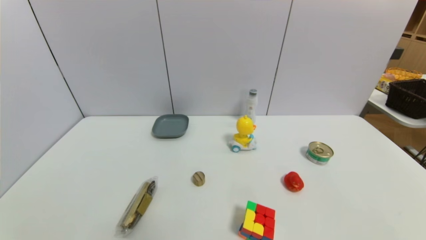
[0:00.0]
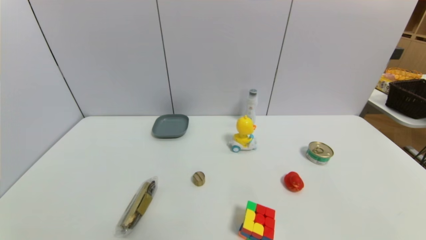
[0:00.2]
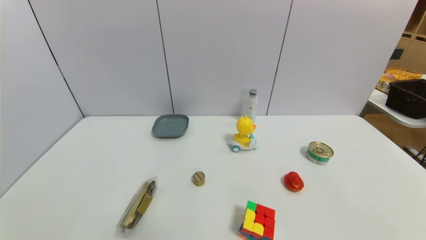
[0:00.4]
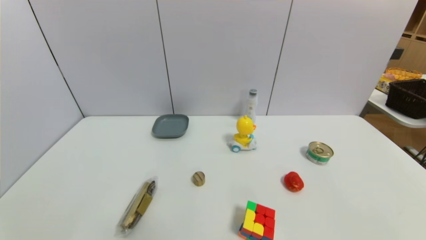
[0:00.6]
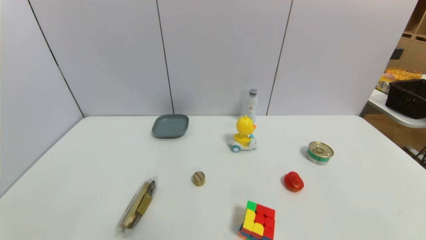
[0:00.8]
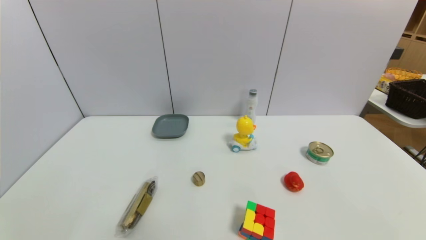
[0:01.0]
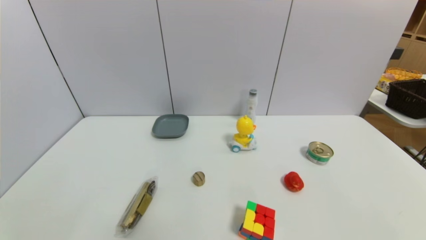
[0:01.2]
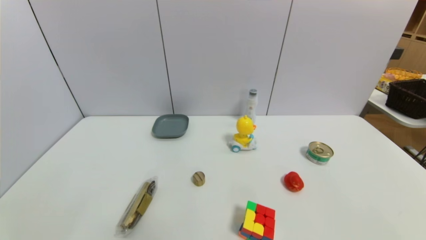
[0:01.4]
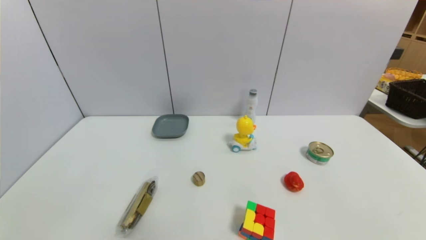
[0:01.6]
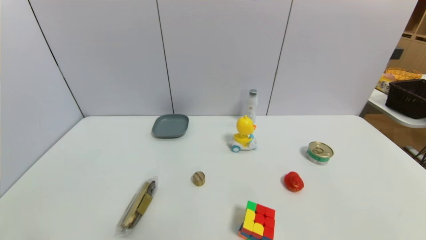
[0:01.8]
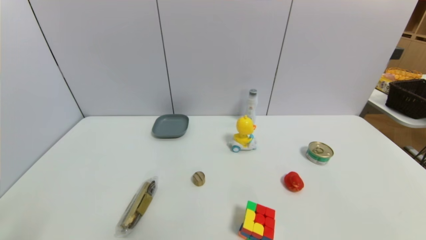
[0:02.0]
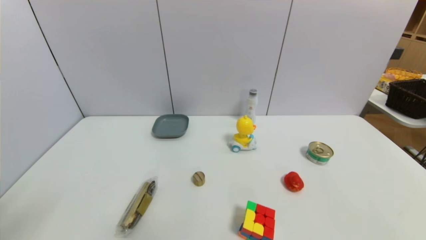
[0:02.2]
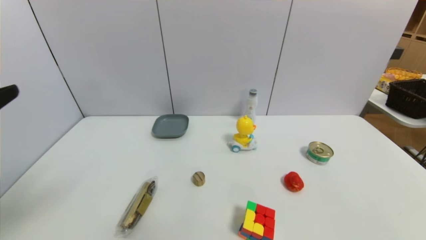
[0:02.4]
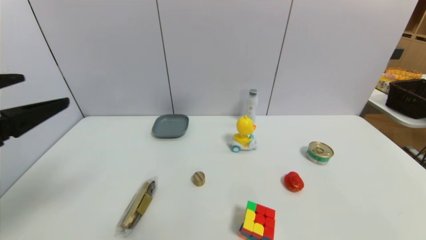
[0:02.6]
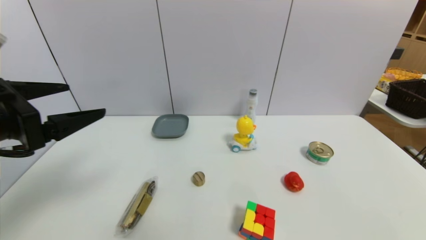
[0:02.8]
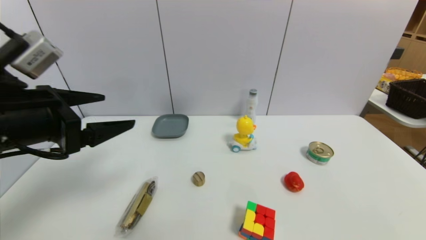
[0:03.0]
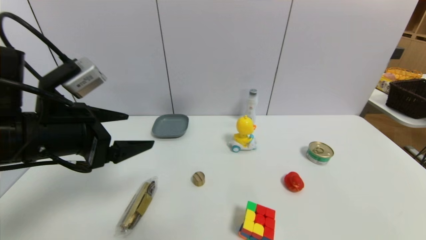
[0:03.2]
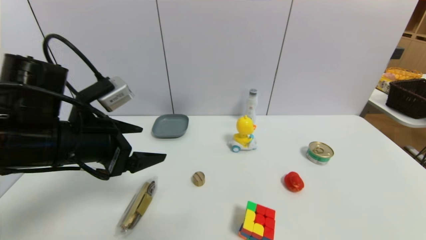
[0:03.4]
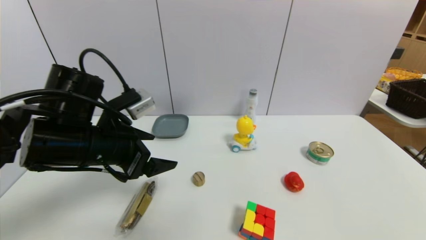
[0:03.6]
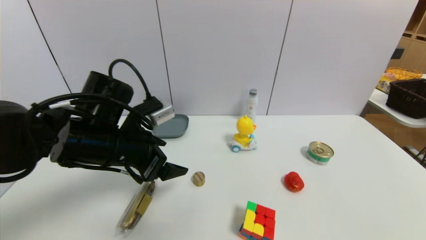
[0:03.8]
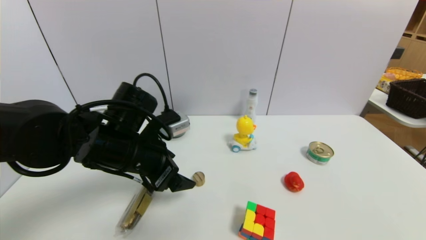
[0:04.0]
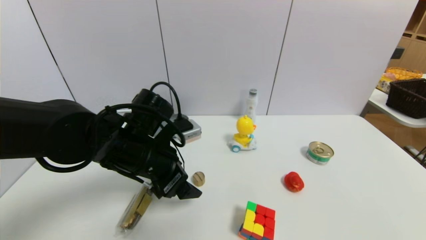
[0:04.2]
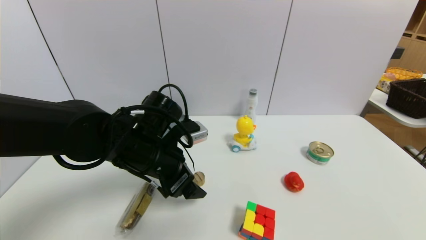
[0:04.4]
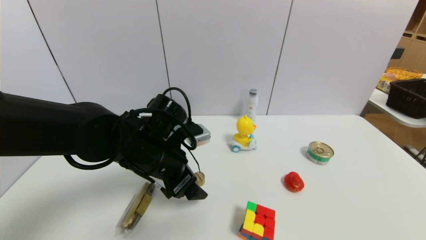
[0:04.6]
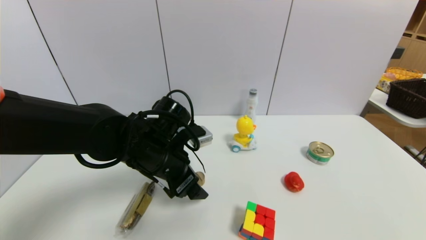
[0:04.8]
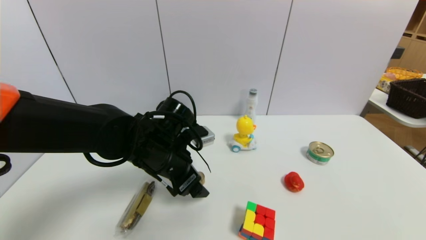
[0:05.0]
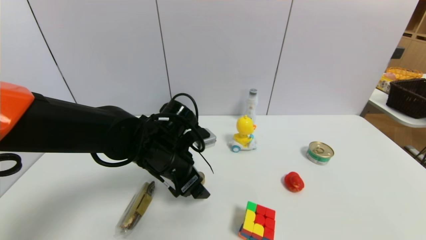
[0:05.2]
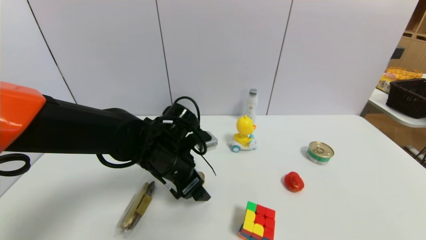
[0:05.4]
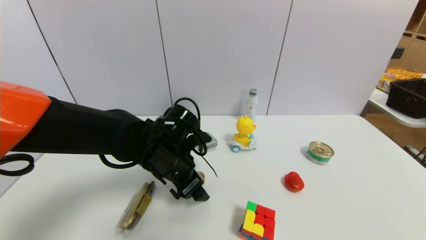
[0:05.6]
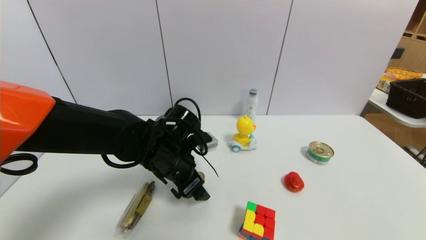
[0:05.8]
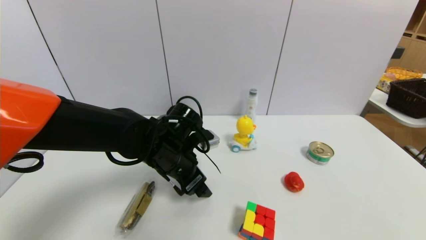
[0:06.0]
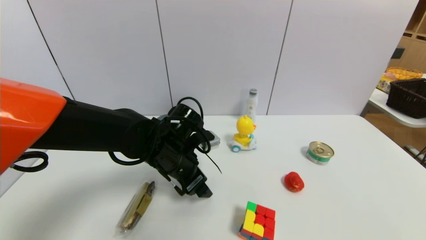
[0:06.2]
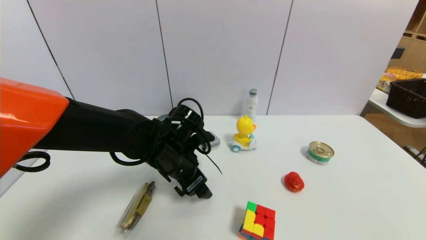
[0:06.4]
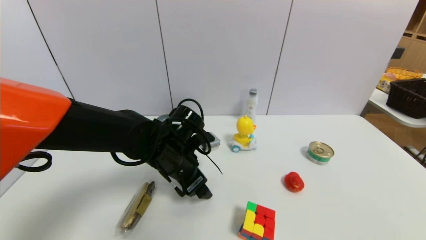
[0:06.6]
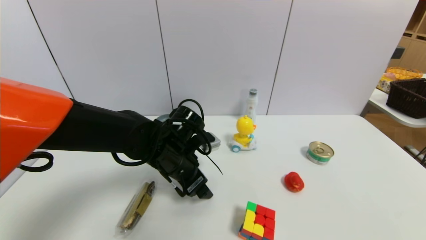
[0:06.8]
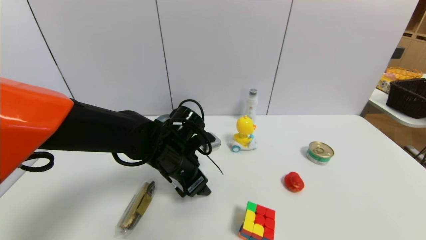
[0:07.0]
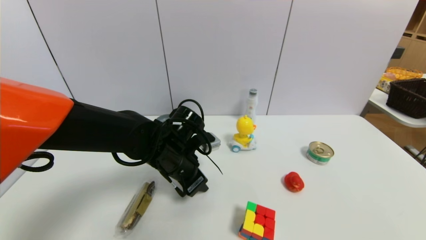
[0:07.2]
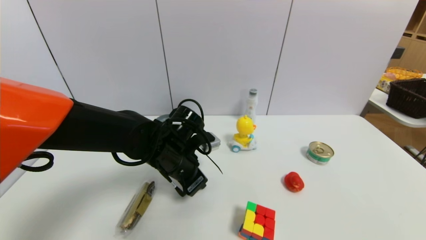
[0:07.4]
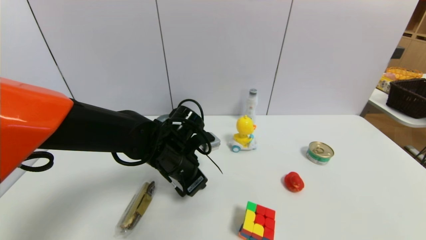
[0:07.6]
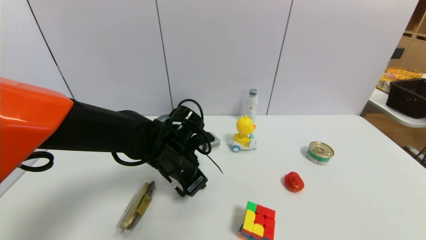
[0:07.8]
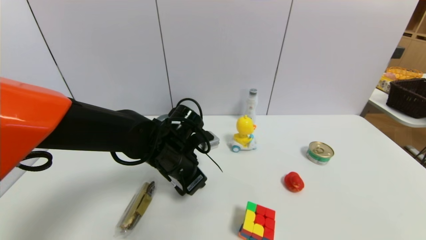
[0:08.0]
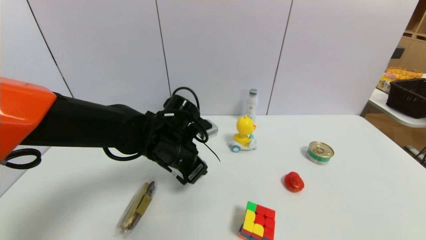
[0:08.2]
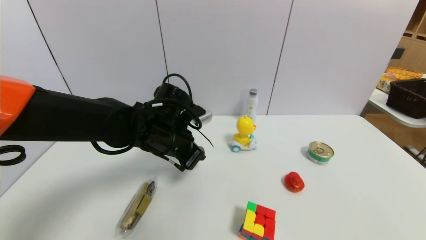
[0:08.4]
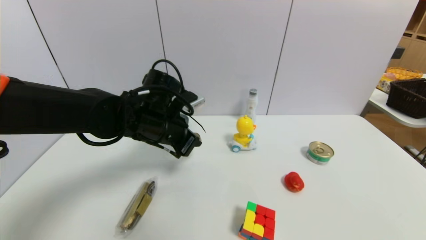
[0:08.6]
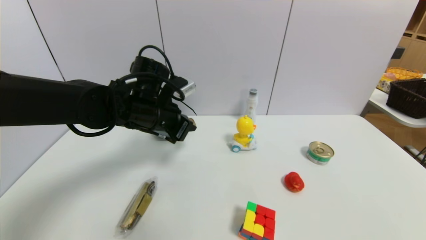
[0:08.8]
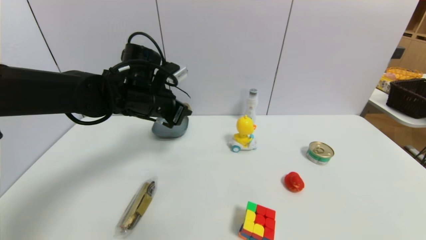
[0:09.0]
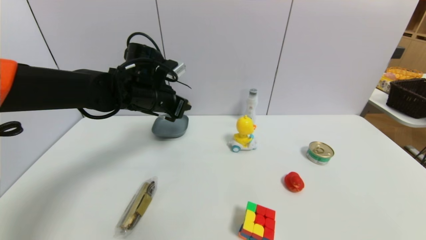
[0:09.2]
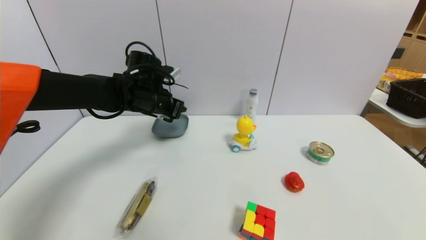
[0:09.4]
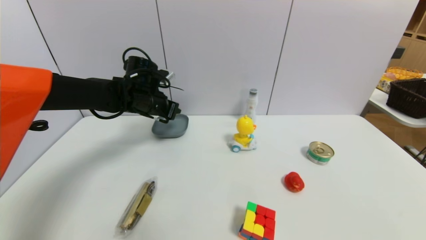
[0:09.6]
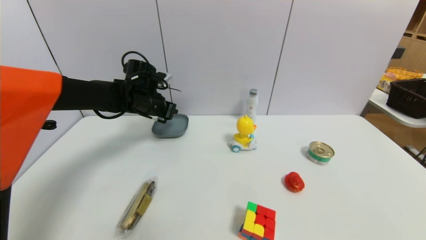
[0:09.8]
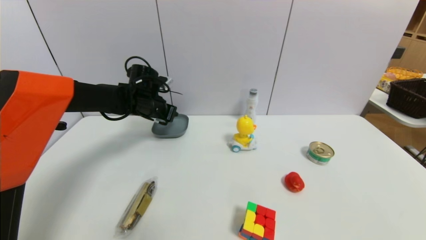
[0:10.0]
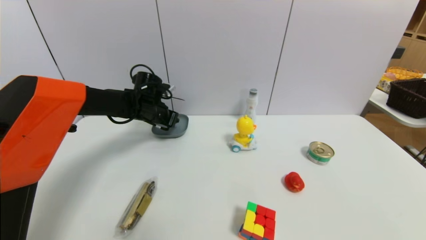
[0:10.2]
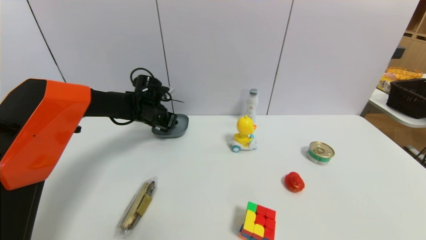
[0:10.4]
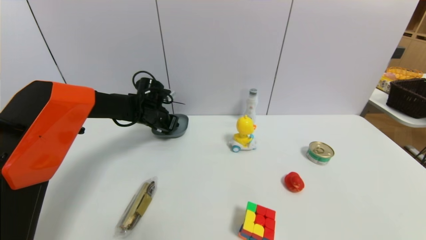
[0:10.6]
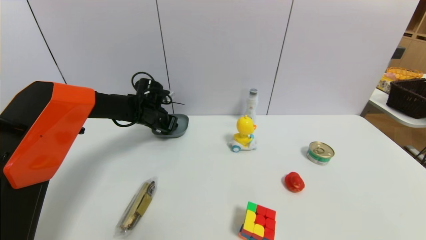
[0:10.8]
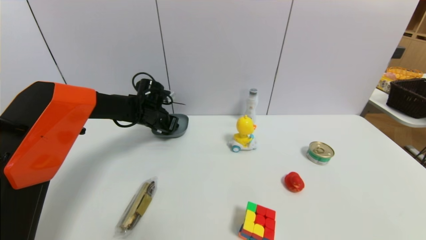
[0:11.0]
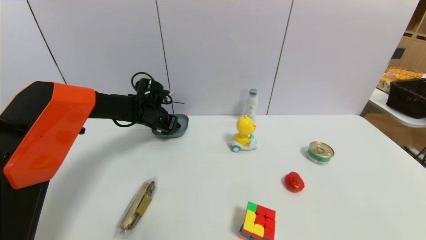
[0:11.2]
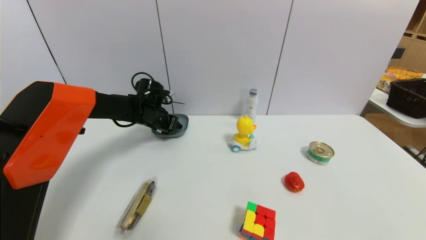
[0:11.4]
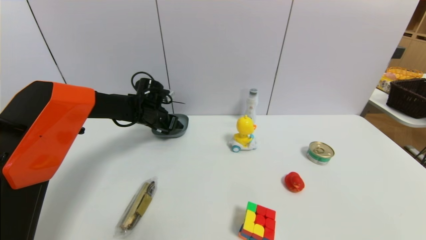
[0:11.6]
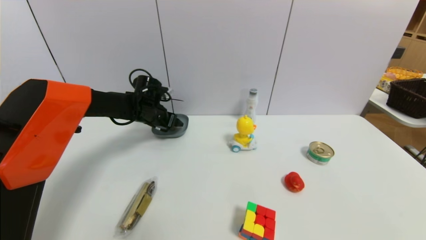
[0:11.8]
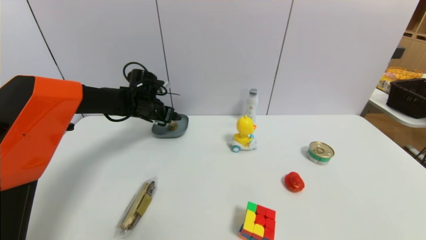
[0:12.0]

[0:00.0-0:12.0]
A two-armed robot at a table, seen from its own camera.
Task of the whole recording: use a gripper to pick the target object and place on the dish.
Step, 0:00.0 to 0:07.6: Grasp the round wooden block with the left gripper.
Step, 0:07.8 to 0:11.2: Place the round wooden block on the dish with the left gripper.
0:01.6 to 0:03.0: The left gripper heads forward and upward, covering approximately 25 cm.
0:03.0 to 0:04.4: The left gripper moves to the right, downward and forward, approximately 20 cm.
0:04.4 to 0:06.0: The left gripper moves roughly 5 cm.
0:06.0 to 0:07.6: The left gripper closes.
0:07.6 to 0:09.0: The left gripper is displaced upward, to the left and forward by roughly 15 cm.
0:09.0 to 0:10.4: The left gripper goes about 15 cm forward and downward.
0:10.4 to 0:12.0: The left gripper opens up.

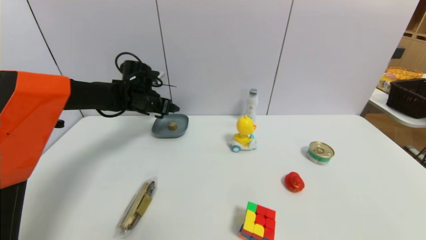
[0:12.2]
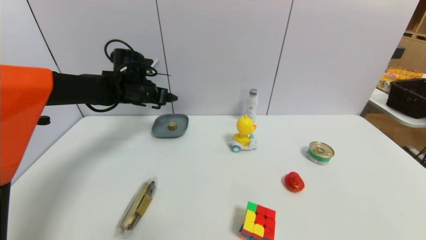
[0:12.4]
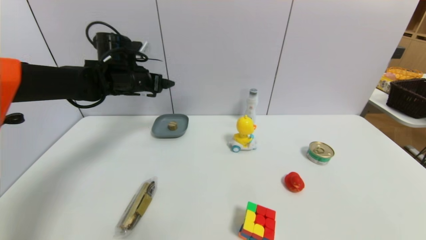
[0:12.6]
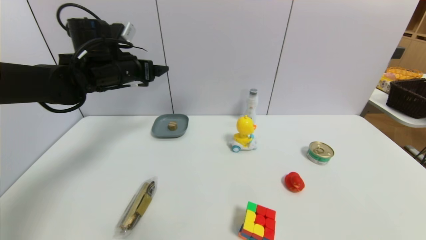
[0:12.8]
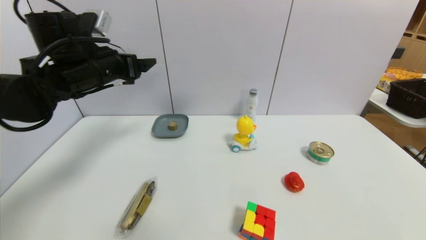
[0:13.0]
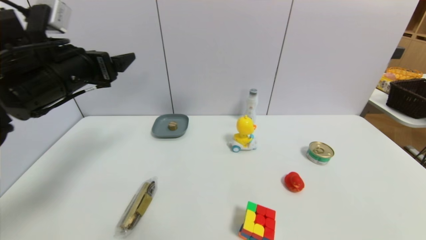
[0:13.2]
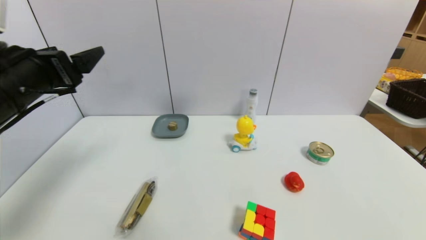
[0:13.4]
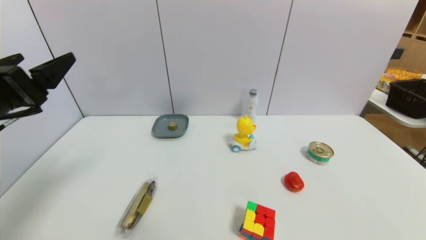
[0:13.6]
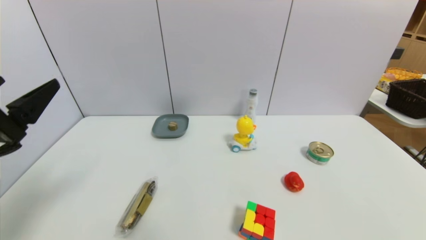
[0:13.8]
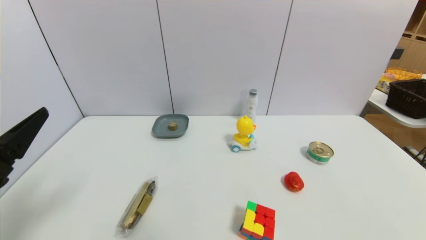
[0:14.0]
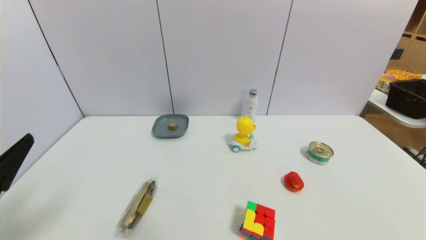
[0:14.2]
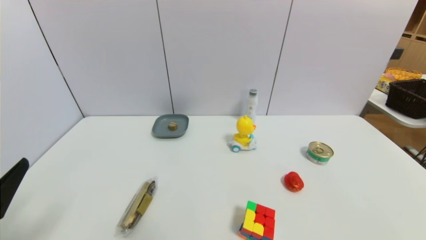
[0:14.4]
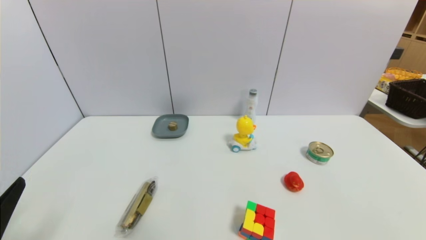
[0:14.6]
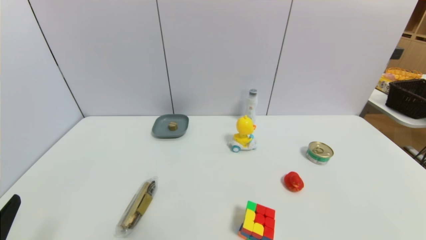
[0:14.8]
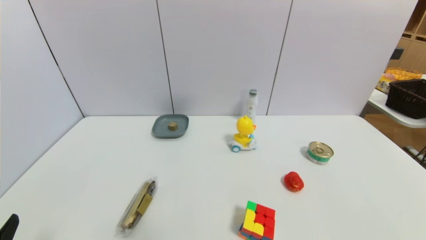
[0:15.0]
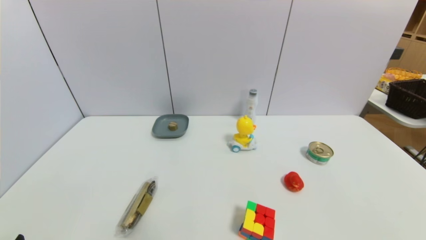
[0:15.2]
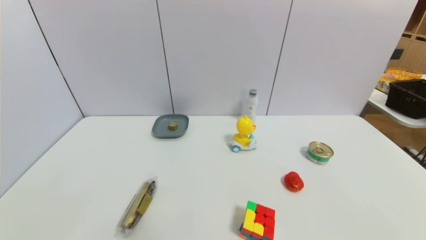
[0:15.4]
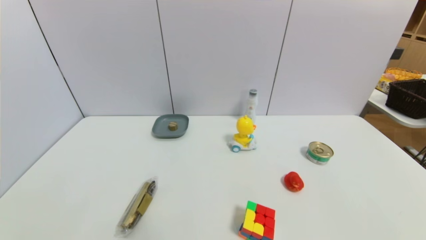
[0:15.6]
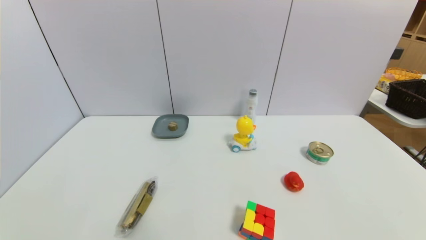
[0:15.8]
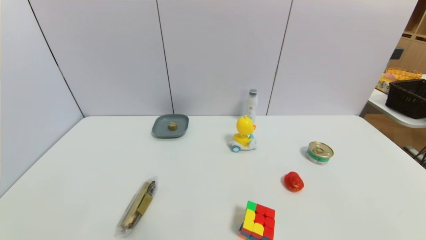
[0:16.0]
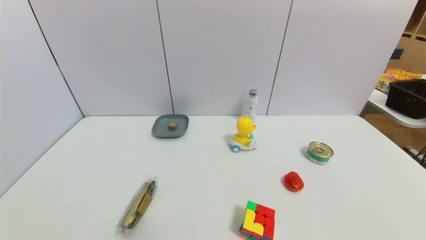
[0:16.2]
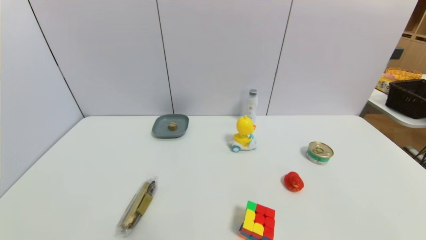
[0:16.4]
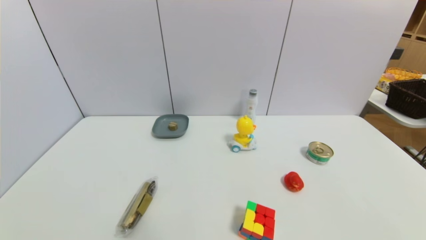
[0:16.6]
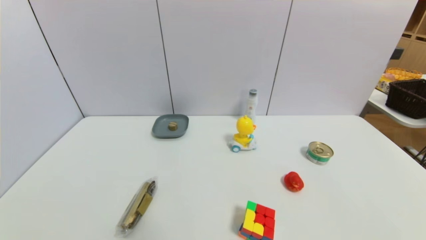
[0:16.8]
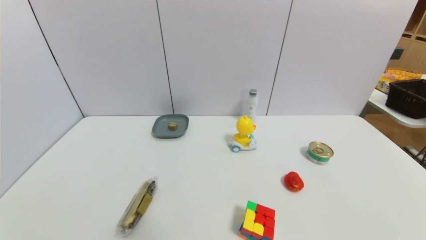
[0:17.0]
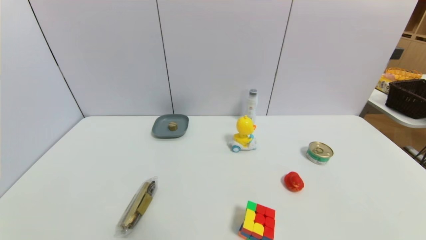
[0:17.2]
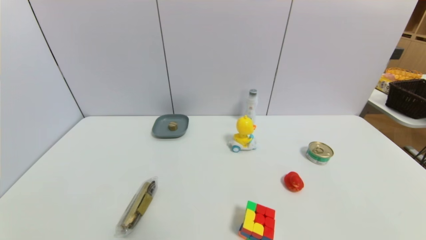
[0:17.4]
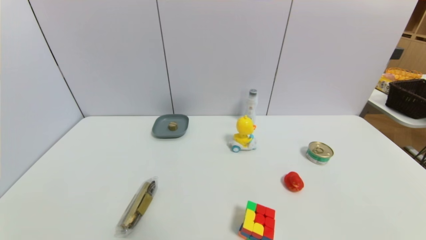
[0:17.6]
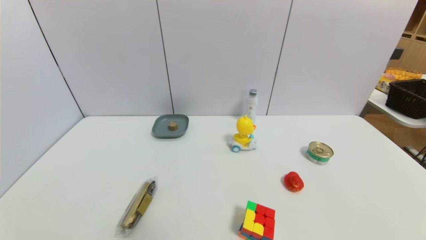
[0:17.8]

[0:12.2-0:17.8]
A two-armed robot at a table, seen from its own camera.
Task of the whole recording: use a gripper to pick the target object and place on the dish.
0:12.2 to 0:13.6: The left gripper moves backward, roughly 30 cm.
0:13.6 to 0:15.0: The left gripper is displaced downward and backward by some 20 cm.
0:16.4 to 0:17.8: Both grippers stay about where they are.
